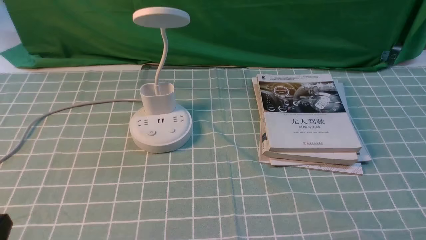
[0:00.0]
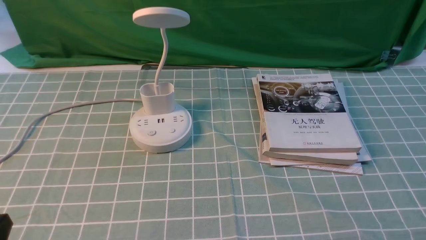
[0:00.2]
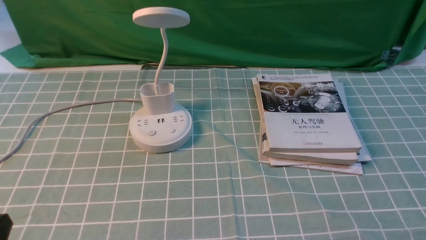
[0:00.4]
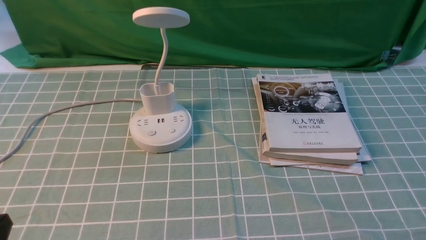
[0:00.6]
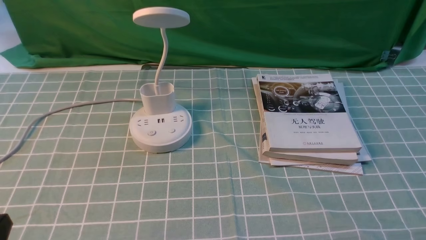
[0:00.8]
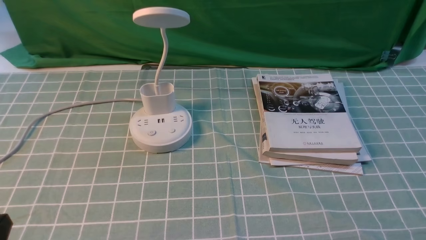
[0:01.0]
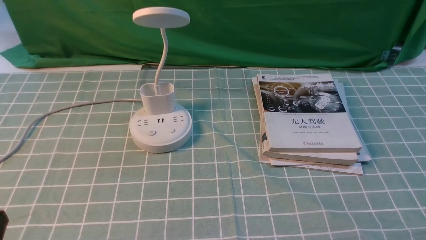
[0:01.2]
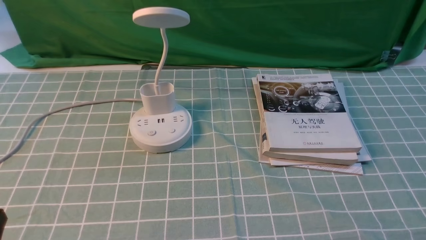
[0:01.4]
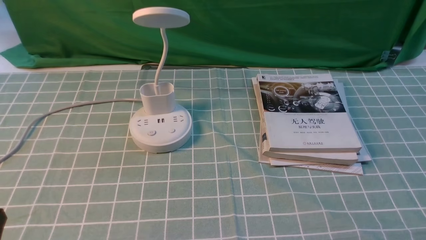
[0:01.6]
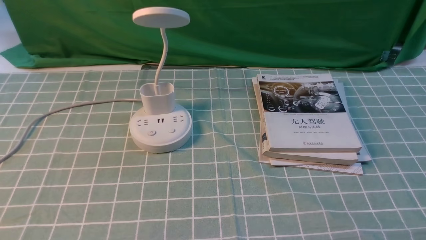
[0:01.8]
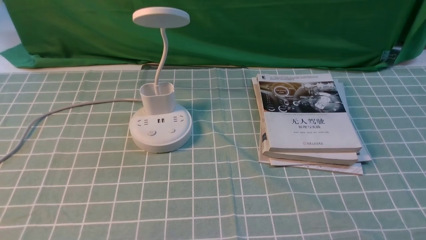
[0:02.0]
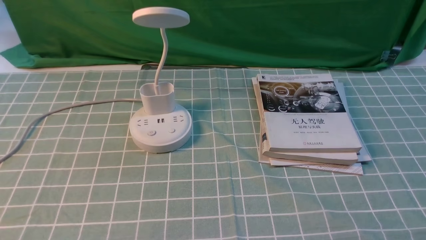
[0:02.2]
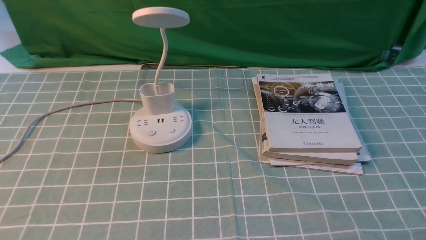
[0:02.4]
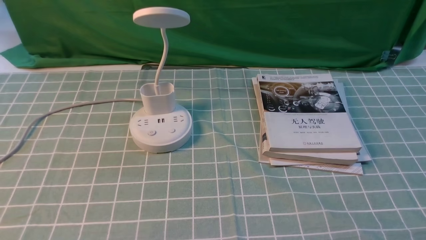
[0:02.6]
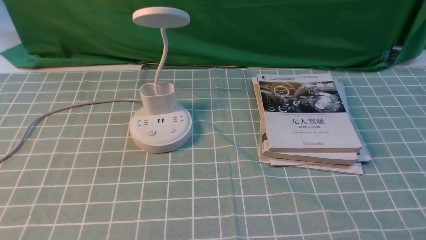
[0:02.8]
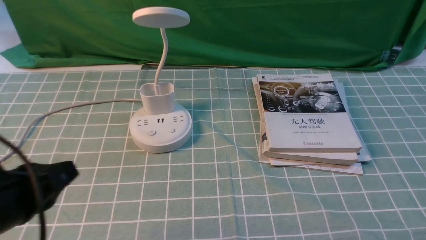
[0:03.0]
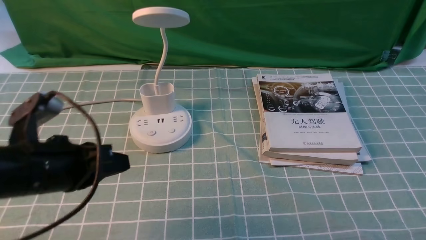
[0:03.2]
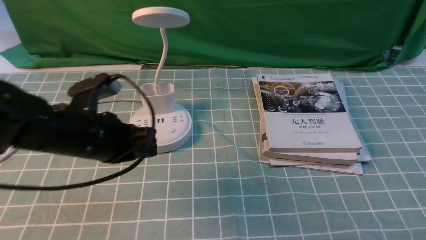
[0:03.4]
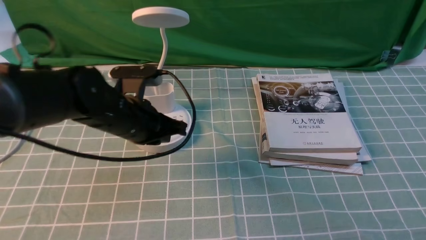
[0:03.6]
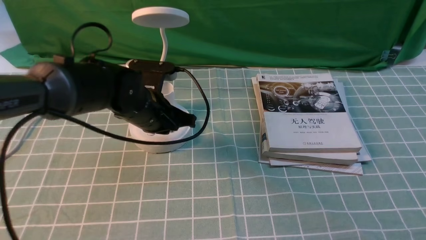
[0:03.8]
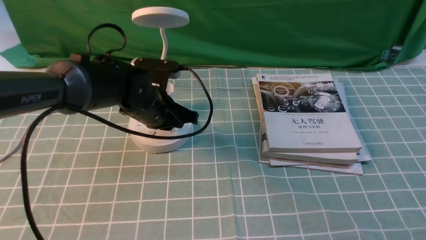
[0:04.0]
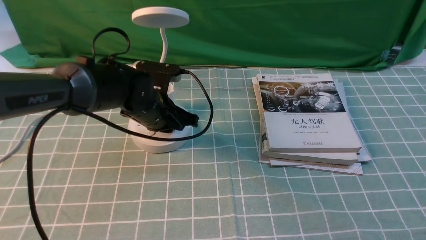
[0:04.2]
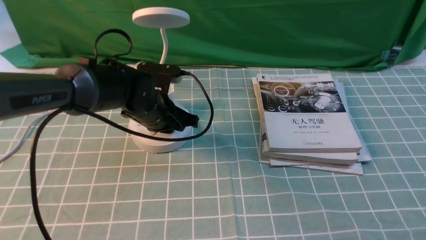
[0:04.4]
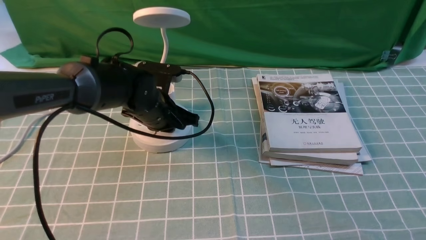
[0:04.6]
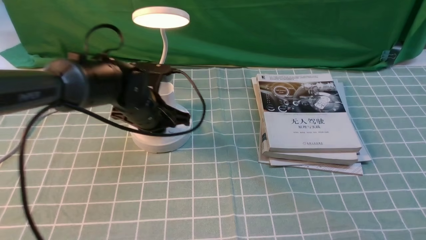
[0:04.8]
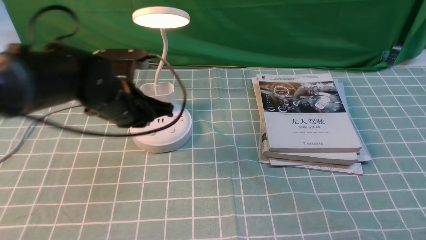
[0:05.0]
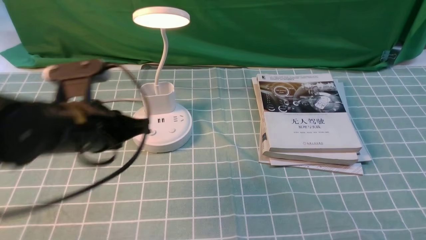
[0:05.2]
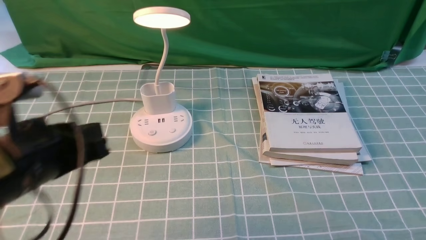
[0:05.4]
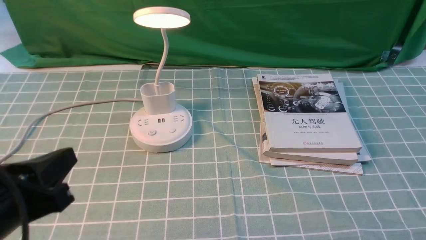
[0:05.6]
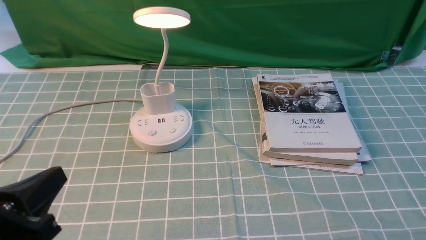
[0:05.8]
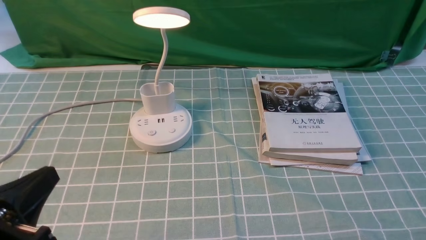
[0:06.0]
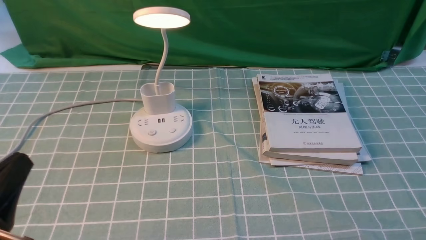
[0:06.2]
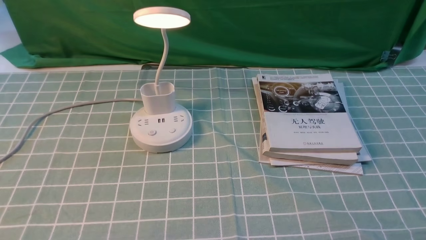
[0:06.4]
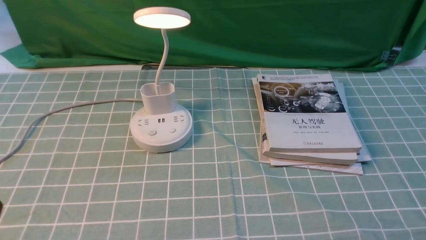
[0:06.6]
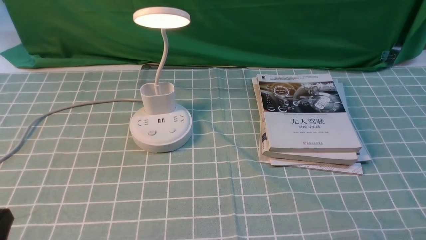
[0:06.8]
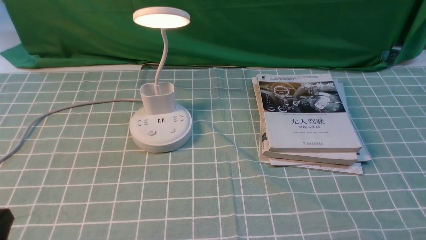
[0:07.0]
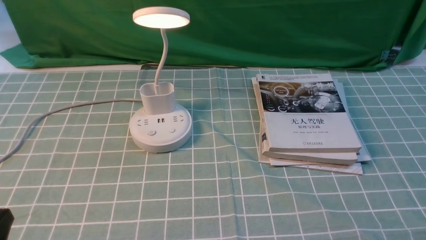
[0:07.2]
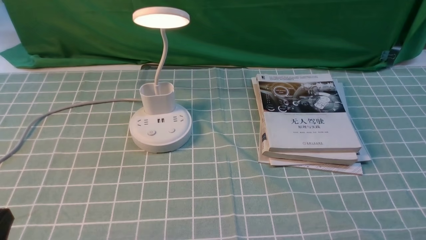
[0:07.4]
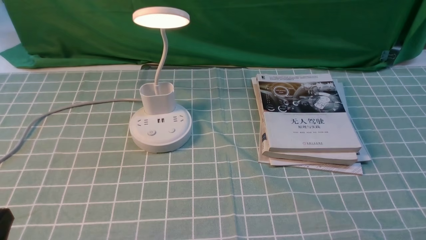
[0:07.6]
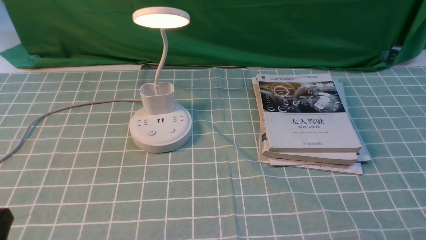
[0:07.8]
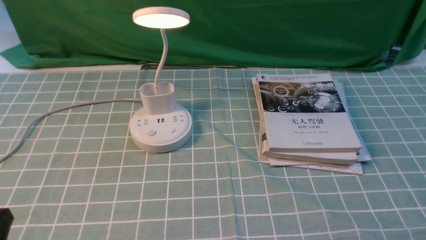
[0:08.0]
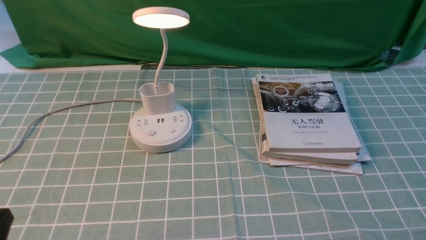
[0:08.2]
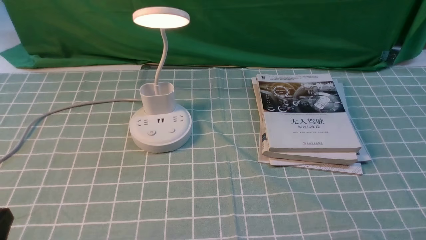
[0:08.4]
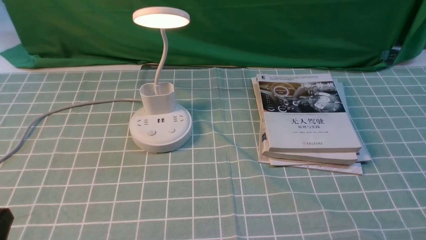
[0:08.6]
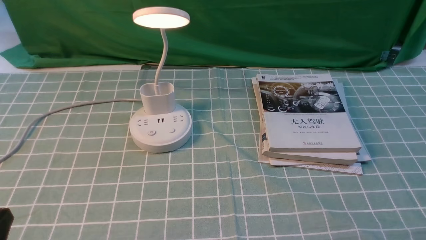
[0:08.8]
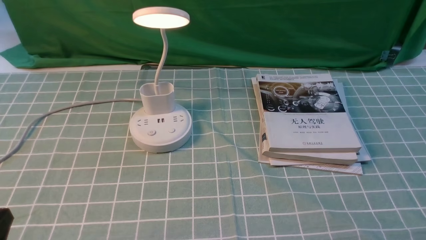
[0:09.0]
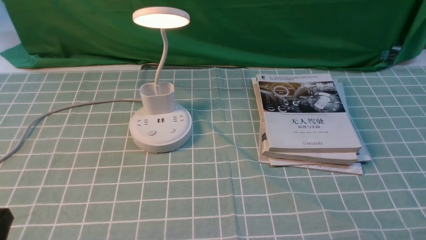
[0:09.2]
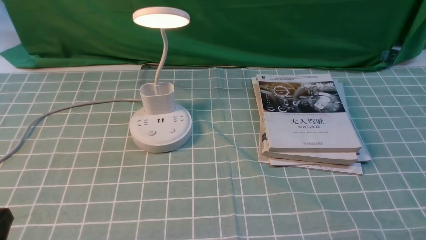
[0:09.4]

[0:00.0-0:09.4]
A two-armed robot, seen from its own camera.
Step, 0:00.0 to 0:04.8: use the left arm to press the button switch on the lamp holder.
0:01.6 to 0:03.2: The left gripper travels forward and to the right by approximately 15 cm.
0:03.2 to 0:04.8: The left gripper is displaced forward and to the right by about 20 cm.
0:04.8 to 0:06.2: The left gripper moves backward and to the left, roughly 30 cm.
0:06.2 to 0:07.8: The left gripper goes about 5 cm downward.
0:07.8 to 0:09.4: Neither gripper changes place.

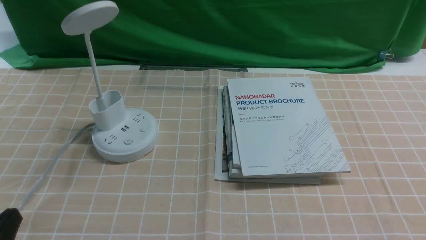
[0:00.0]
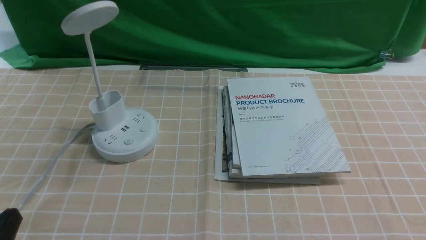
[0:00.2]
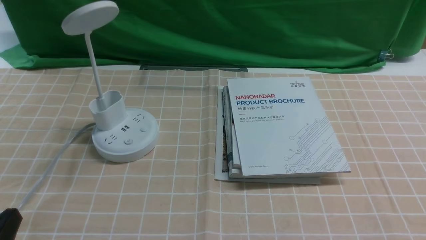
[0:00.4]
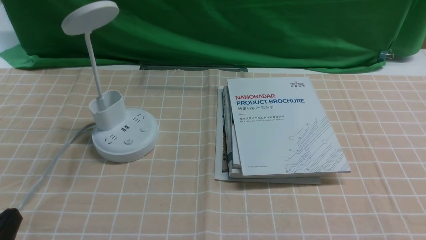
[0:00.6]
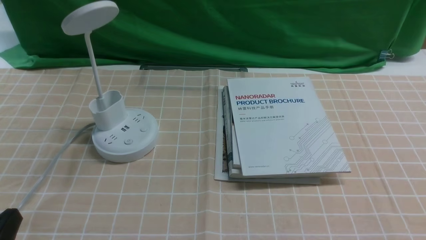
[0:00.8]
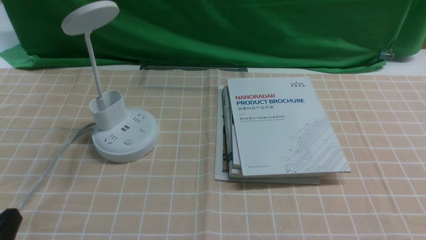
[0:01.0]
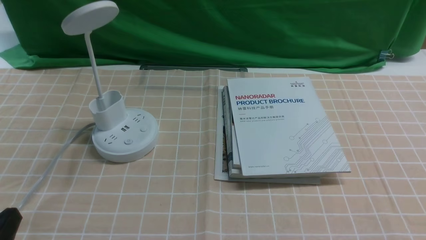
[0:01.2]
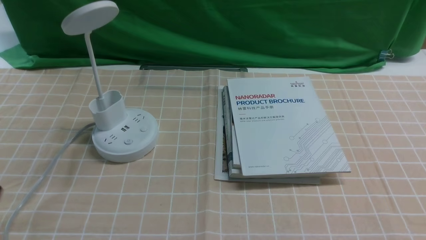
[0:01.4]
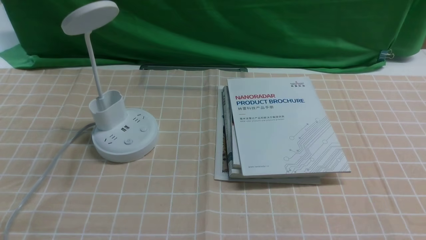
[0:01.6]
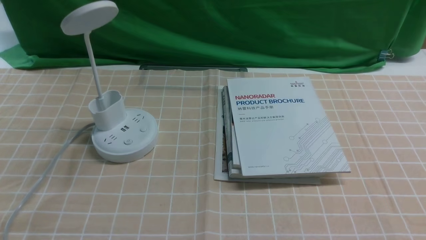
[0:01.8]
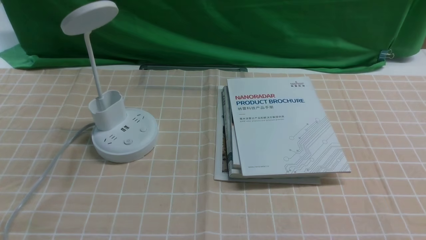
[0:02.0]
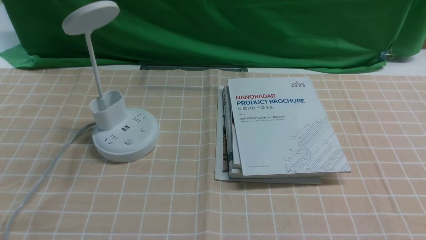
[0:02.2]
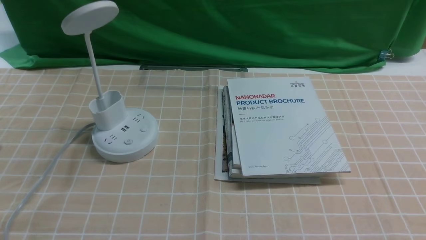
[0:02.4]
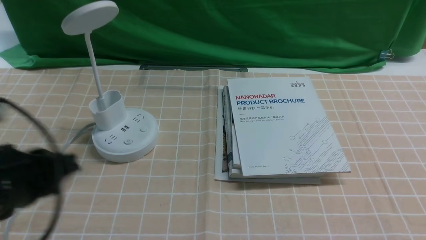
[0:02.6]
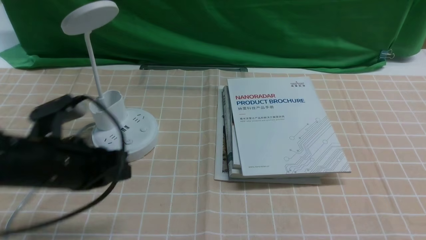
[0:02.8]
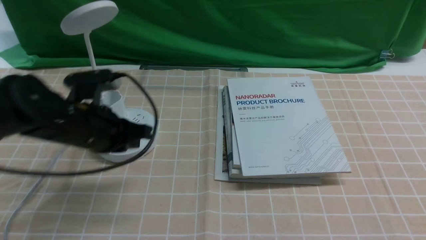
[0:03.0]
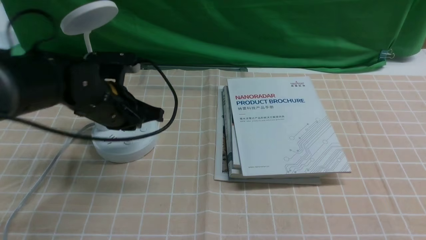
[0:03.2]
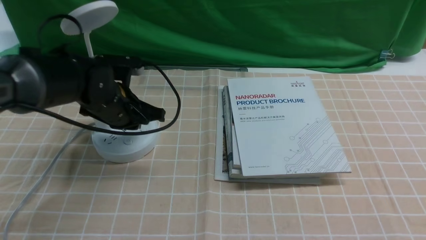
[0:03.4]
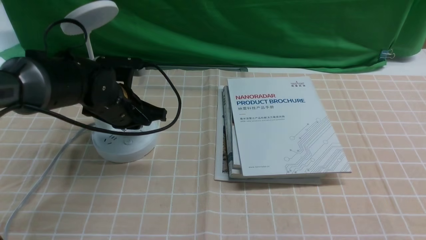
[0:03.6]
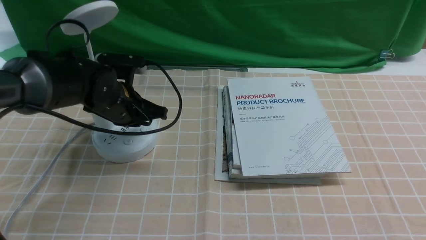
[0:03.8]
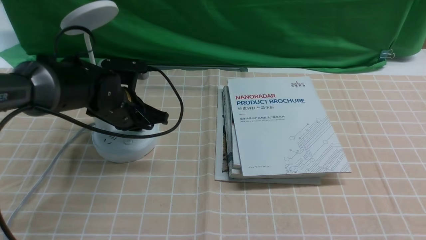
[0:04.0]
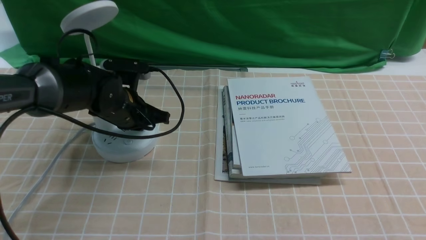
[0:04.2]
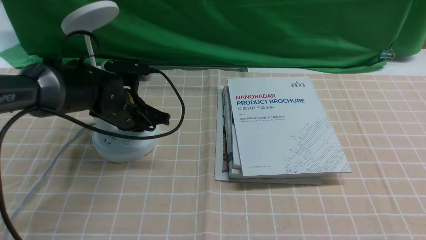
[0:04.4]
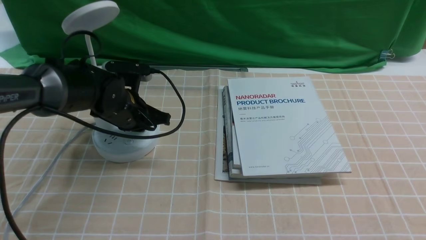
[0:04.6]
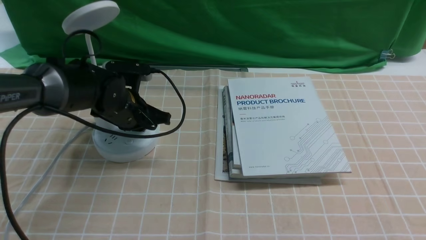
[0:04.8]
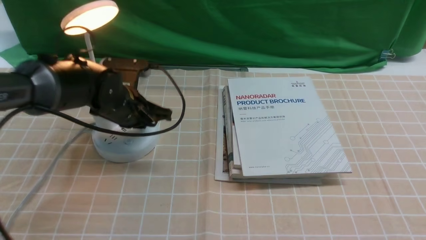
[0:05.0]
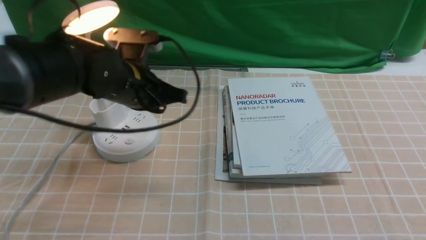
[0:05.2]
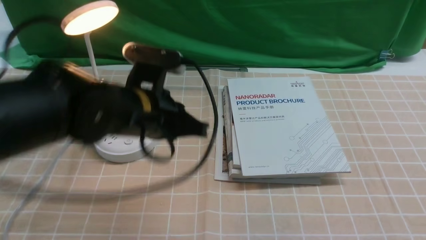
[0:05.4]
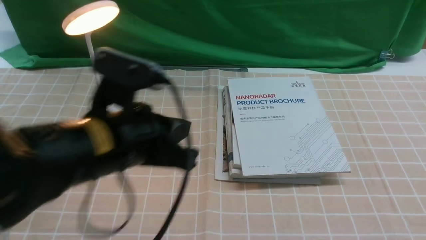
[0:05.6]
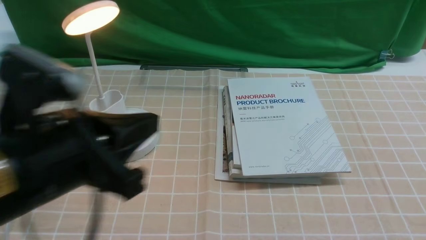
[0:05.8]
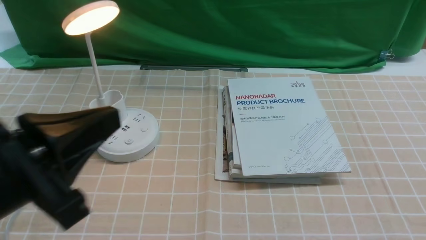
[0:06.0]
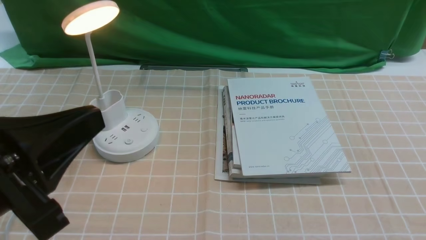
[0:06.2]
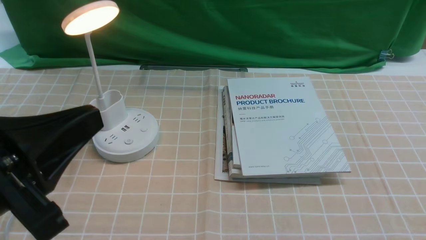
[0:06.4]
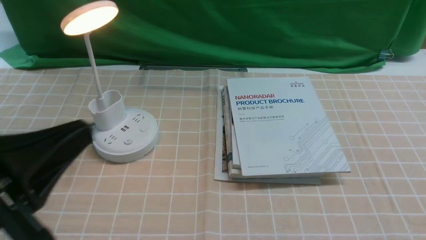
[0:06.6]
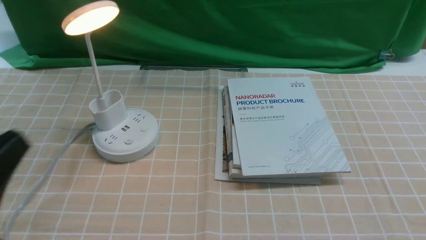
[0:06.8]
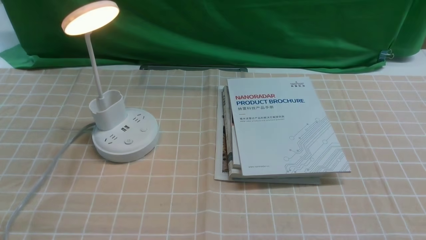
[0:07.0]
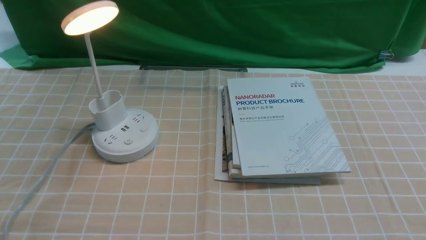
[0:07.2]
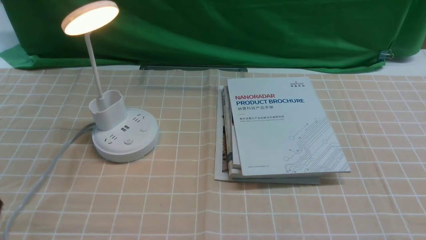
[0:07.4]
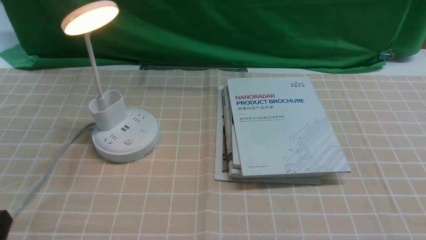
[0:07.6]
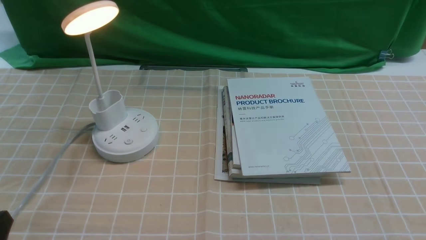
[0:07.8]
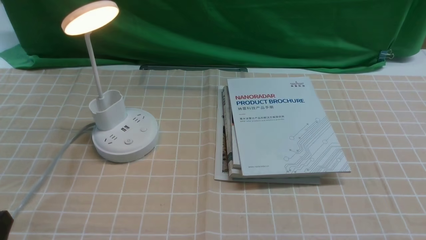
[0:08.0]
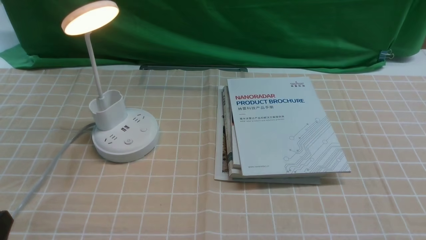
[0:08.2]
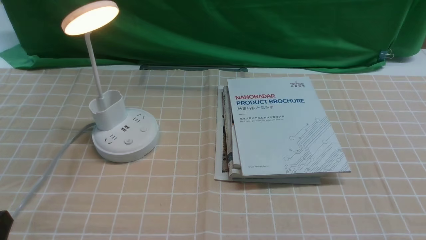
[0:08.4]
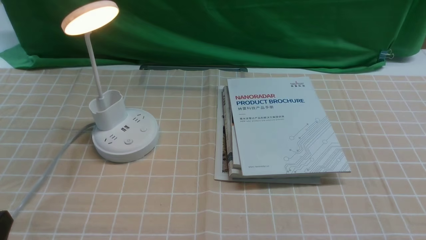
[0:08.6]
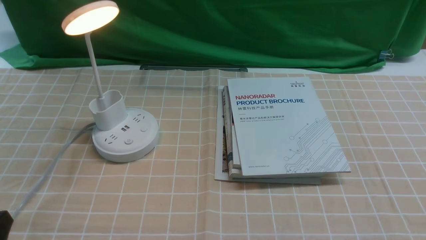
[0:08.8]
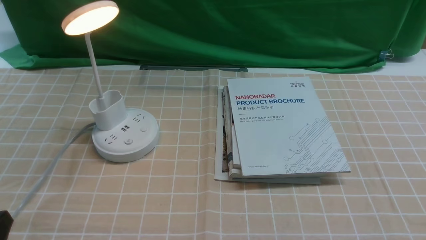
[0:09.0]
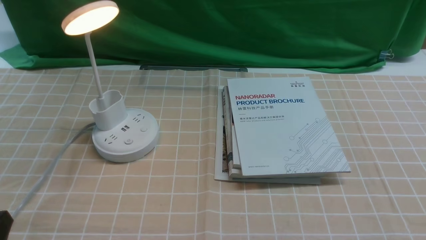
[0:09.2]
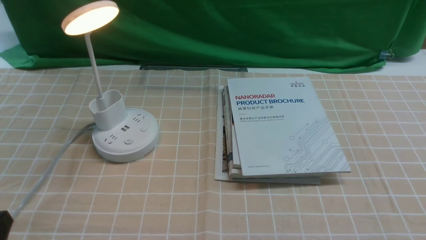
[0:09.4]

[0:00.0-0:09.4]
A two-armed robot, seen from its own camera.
Step, 0:00.0 to 0:05.4: use the left arm to press the button switch on the lamp holder.
0:01.6 to 0:03.2: The left gripper is displaced forward by about 30 cm.
0:03.2 to 0:04.8: The left gripper ends up about 5 cm from where it was.
0:04.8 to 0:06.2: The left gripper moves backward and upward, some 35 cm.
0:06.2 to 0:07.8: The left gripper shifts some 15 cm downward and to the left.
0:07.8 to 0:09.4: Both grippers stay put.
